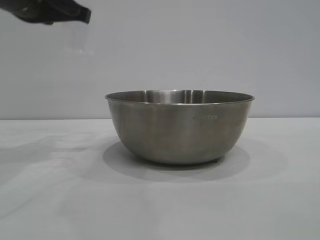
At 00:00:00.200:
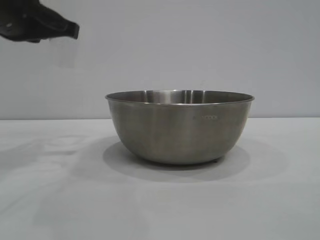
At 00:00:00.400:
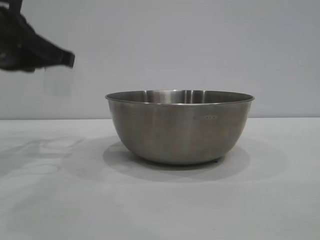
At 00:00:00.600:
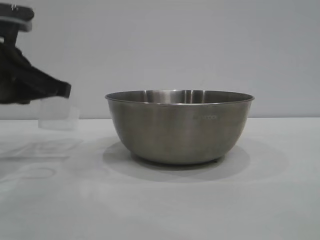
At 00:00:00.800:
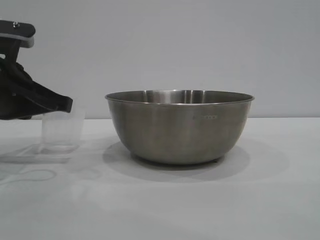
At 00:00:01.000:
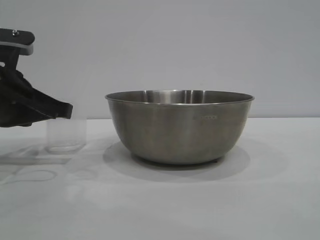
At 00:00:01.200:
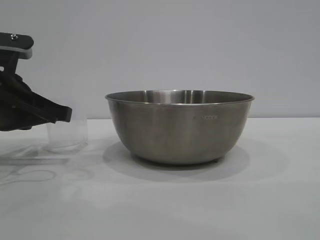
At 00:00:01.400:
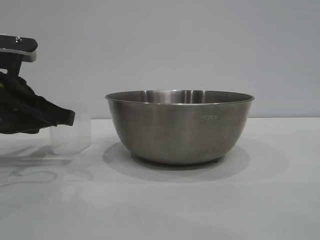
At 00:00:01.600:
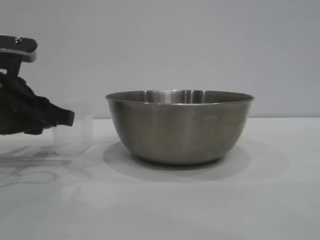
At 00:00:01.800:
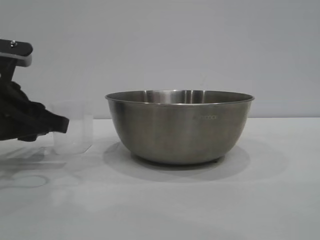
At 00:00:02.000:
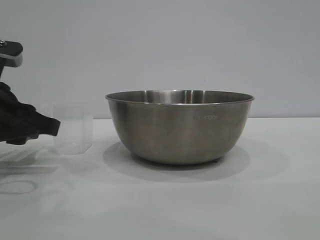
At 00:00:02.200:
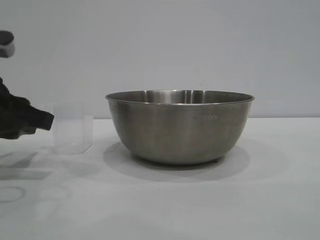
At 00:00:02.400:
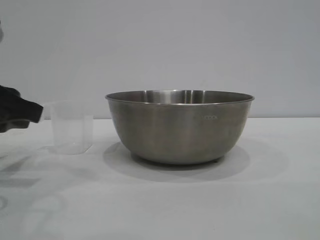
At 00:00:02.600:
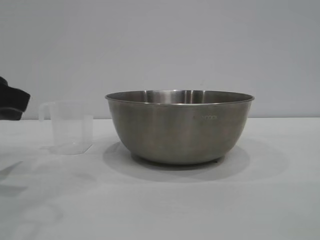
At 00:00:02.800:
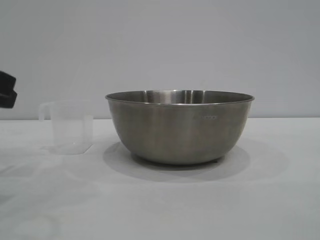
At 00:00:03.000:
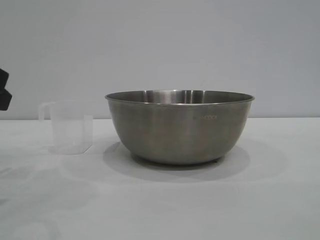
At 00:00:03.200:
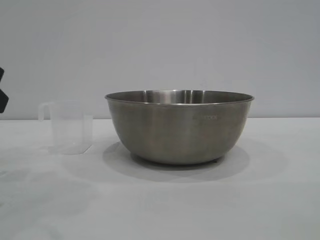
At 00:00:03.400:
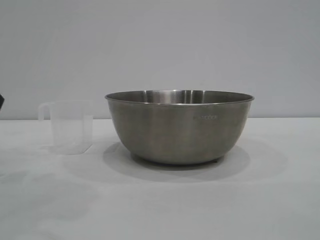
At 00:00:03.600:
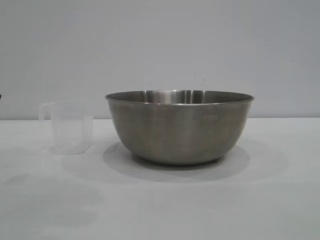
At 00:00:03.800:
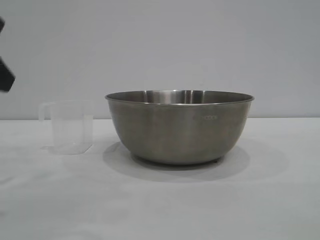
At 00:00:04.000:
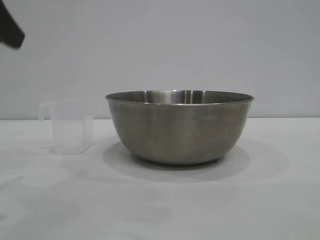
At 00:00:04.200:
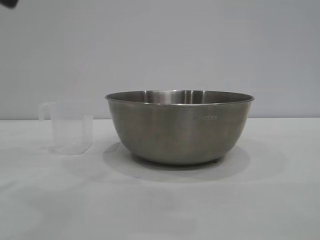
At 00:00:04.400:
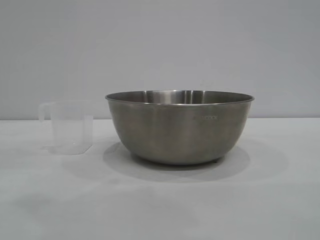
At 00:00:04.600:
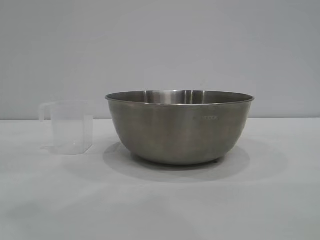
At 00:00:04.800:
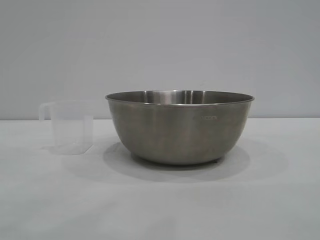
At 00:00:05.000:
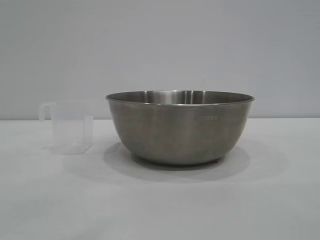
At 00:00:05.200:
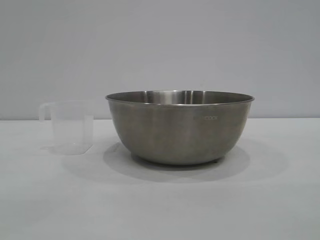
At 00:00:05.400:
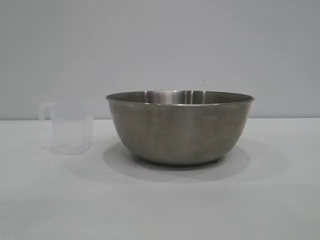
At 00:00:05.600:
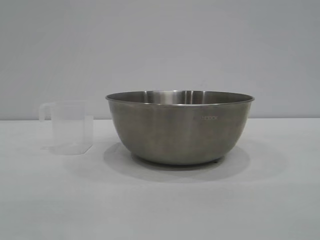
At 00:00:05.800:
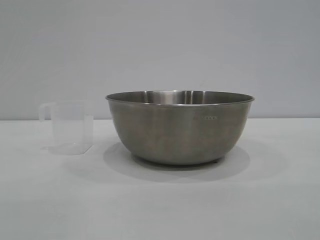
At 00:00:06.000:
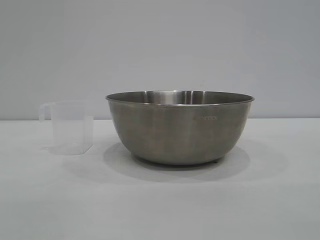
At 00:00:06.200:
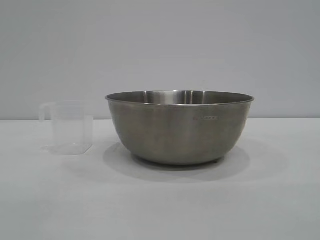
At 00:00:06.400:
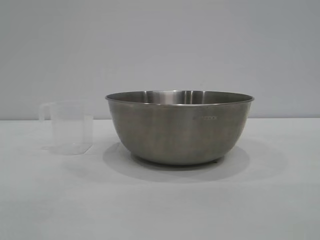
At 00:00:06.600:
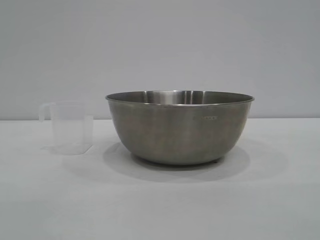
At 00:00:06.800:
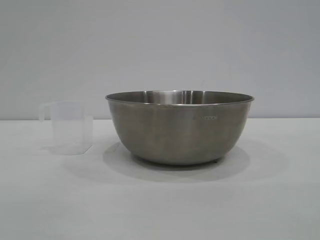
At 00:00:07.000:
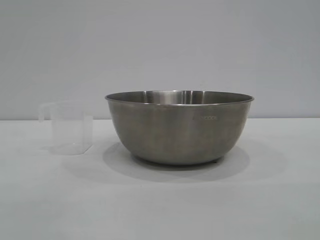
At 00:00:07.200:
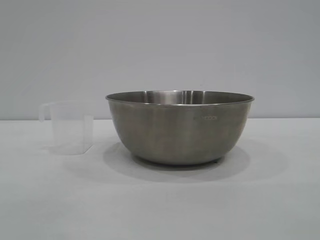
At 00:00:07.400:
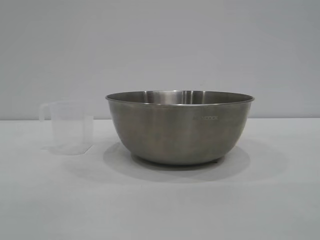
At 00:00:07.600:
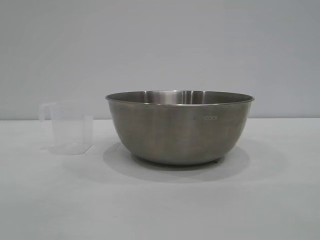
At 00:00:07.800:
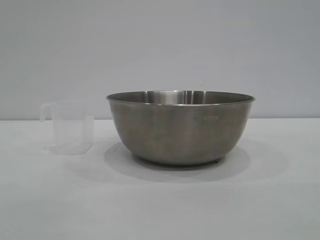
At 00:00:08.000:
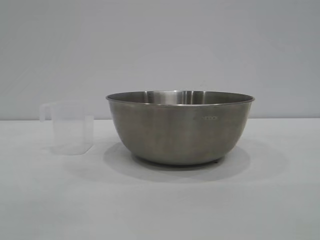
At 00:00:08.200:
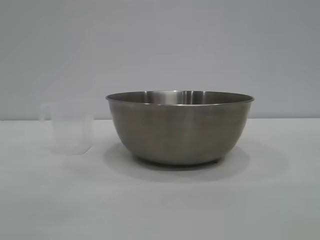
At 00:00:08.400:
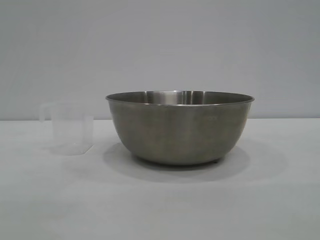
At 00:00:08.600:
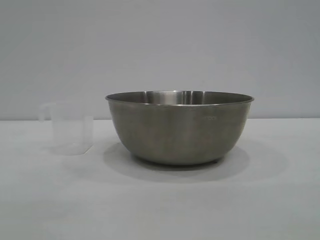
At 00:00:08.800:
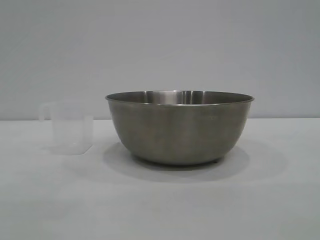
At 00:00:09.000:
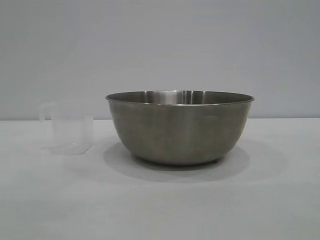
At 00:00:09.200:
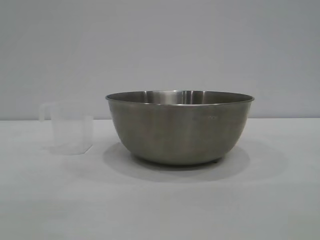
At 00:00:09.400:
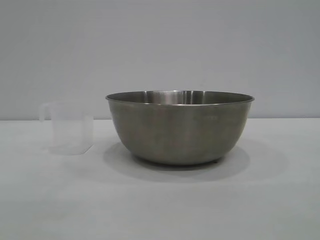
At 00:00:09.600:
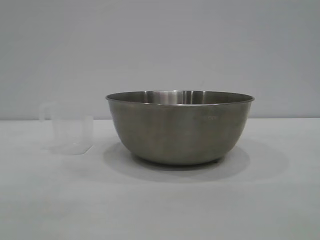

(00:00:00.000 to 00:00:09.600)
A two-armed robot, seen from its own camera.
Task of the whole recording: the right gripper grasp the rice container and place it in the center of the table, the left gripper grasp the rice scoop and pour the rice into the rice container.
Step, 00:00:00.000 - 00:00:02.600: Place the cup on the table with the left gripper.
